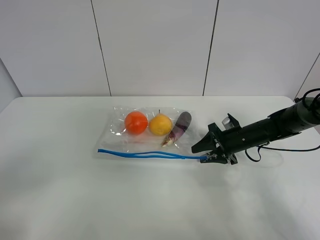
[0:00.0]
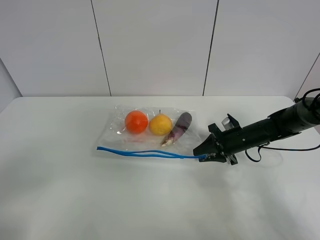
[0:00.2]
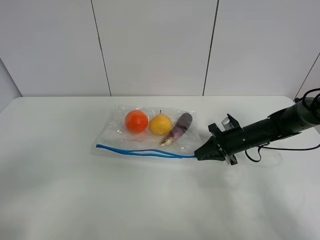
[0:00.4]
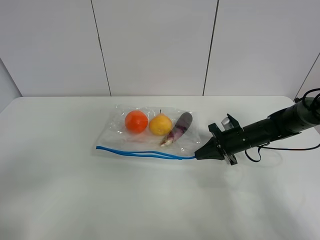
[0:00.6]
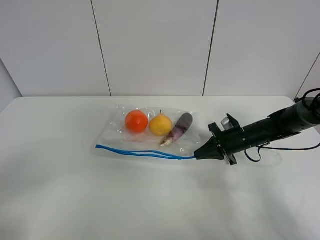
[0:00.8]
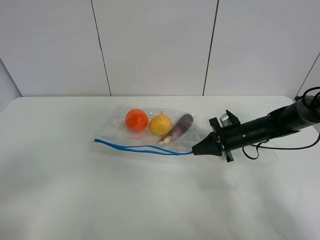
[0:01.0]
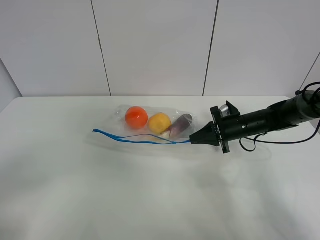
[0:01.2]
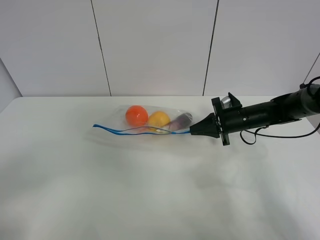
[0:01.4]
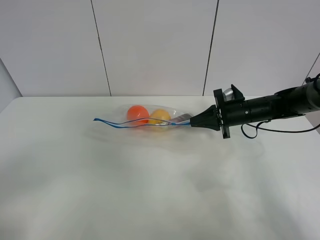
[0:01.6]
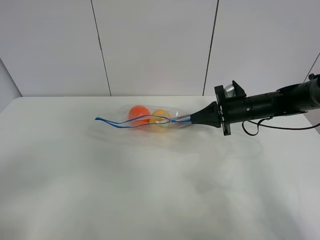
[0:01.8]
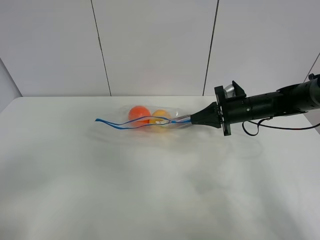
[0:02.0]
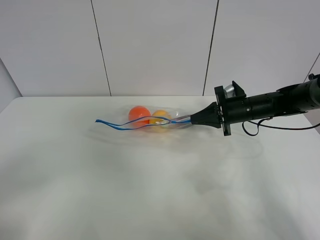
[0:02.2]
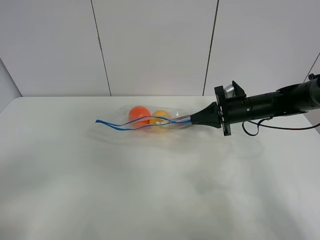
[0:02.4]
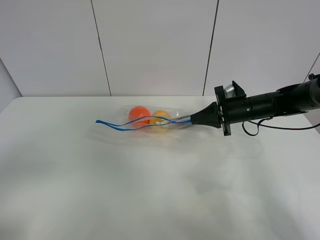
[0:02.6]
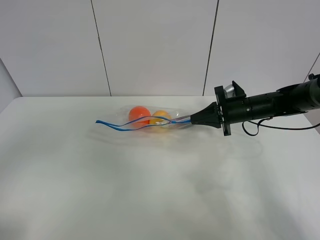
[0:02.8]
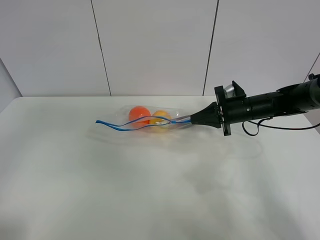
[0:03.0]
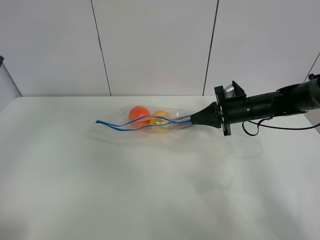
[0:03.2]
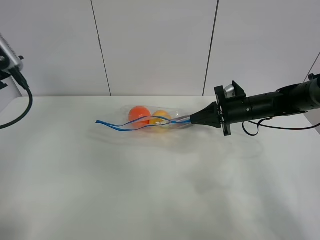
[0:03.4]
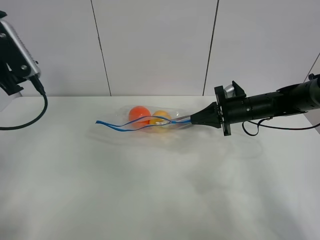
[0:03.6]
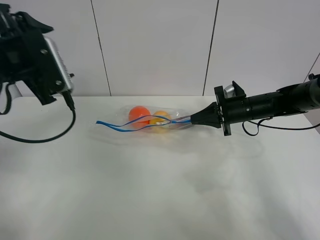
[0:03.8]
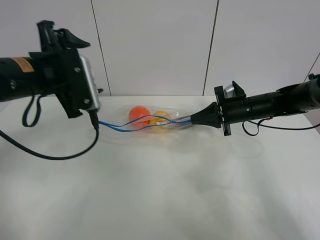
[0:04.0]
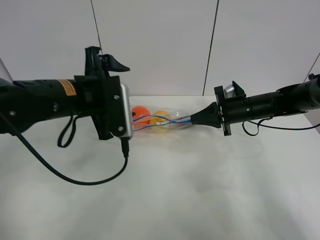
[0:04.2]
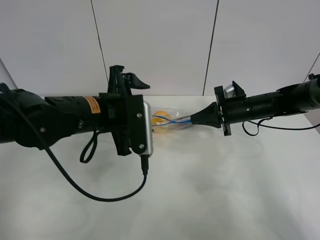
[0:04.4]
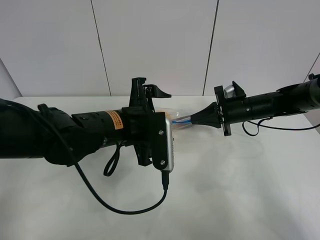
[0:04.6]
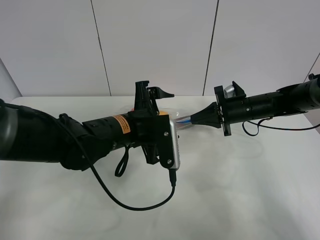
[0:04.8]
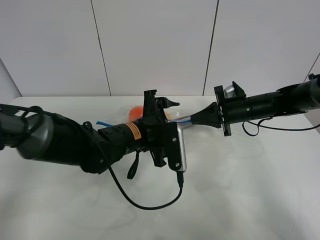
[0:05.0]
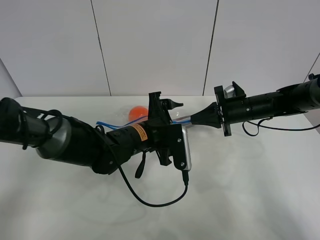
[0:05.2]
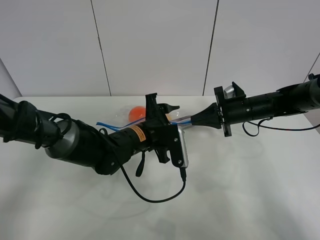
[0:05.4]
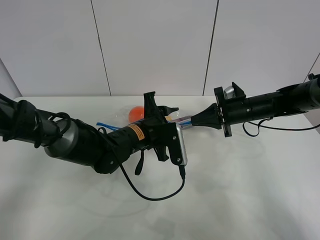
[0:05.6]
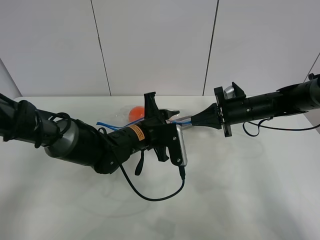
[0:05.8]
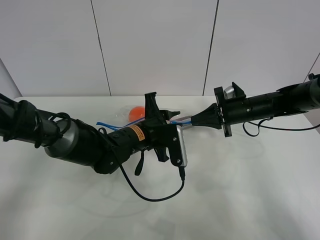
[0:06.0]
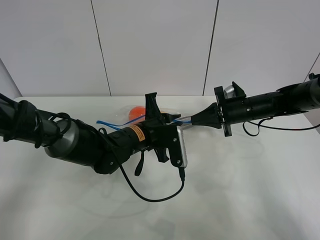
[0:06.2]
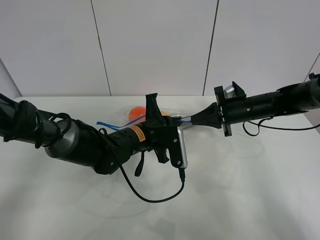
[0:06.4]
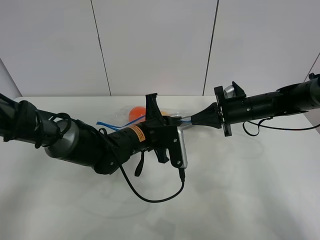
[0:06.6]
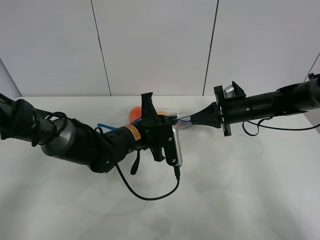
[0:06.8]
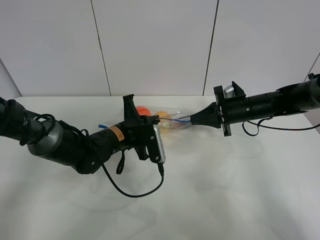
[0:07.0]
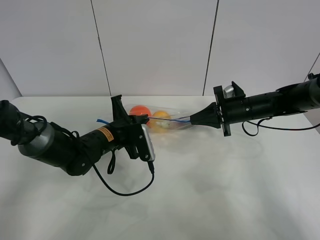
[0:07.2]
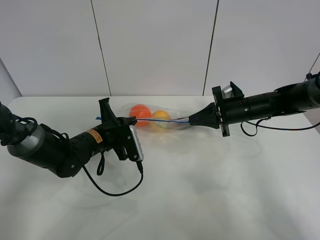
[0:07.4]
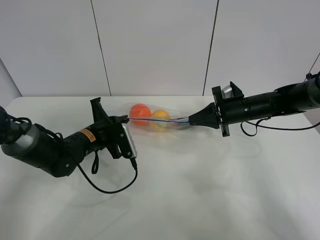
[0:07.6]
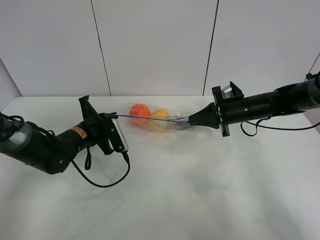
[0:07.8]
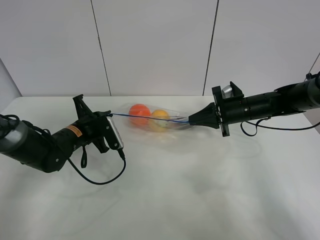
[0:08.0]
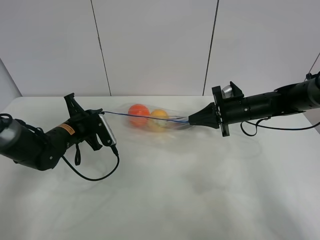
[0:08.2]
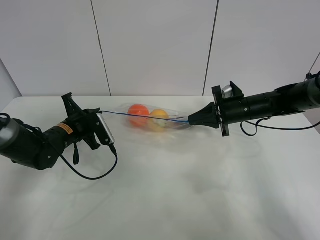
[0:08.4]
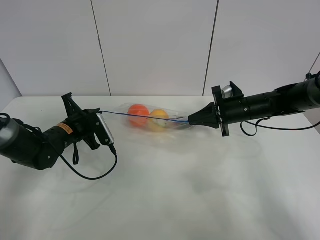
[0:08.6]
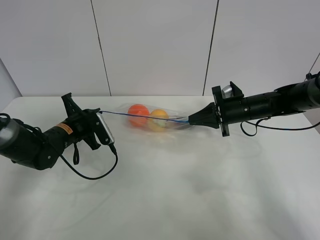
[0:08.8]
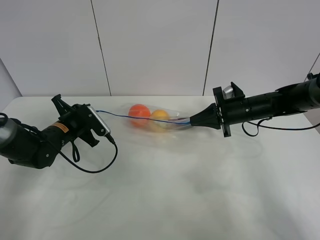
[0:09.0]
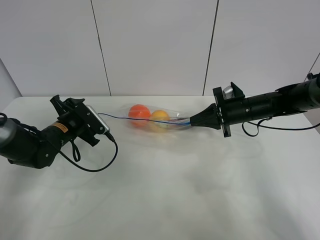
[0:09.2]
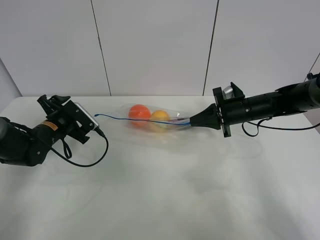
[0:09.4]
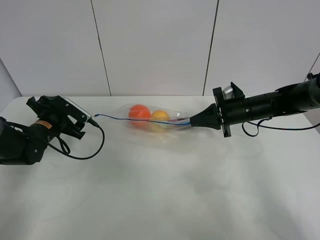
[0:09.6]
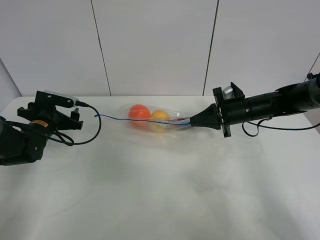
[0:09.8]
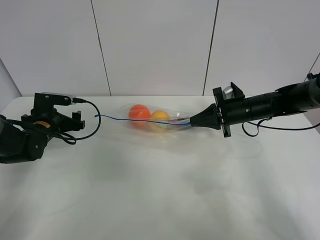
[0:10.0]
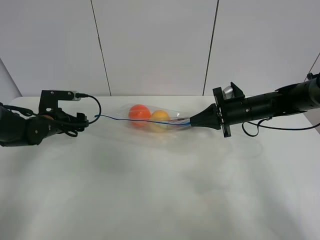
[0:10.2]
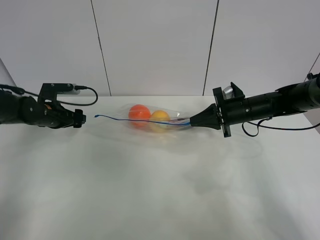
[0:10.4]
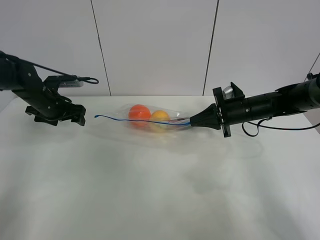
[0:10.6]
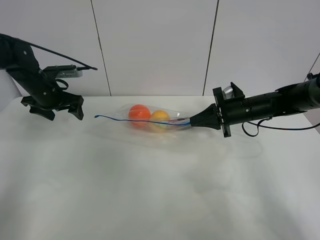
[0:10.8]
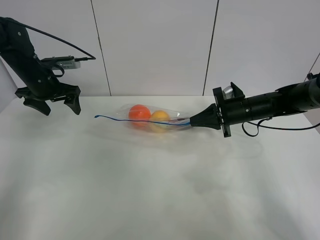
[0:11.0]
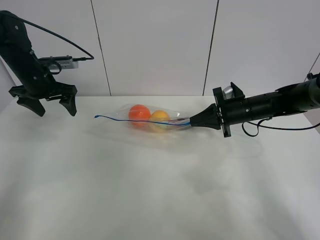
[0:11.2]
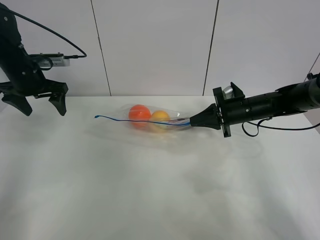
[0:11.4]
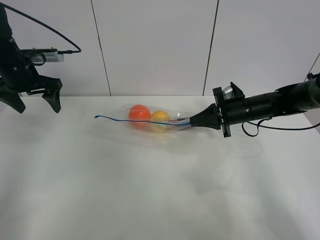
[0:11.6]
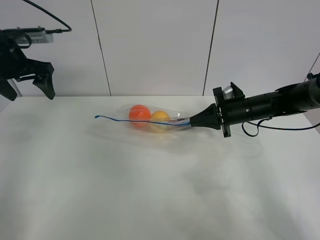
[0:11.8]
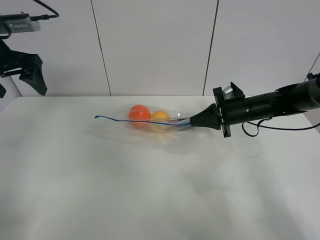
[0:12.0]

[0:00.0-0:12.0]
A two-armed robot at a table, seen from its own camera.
Step, 0.6 to 1.8 s: Lift the fruit bag with your right gripper.
Step, 2.0 to 9.0 s: Pull the fruit bag with left gripper.
0.0 to 1.6 s: The right gripper heads upward, covering approximately 5 cm, and closes.
1.6 to 3.0 s: The left gripper travels forward and upward by roughly 20 cm.
3.0 to 4.4 s: The left gripper heads to the right, downward and forward, covering some 25 cm.
4.4 to 6.0 s: The left gripper travels downward and to the right by roughly 10 cm, and closes.
6.0 to 7.6 s: The left gripper shifts approximately 15 cm to the left.
7.6 to 9.0 s: The left gripper is displaced to the left by about 5 cm, and opens up.
9.0 to 10.4 s: The left gripper heads to the left, covering roughly 5 cm, and opens its fingers.
10.4 to 12.0 s: The left gripper goes roughly 20 cm upward.

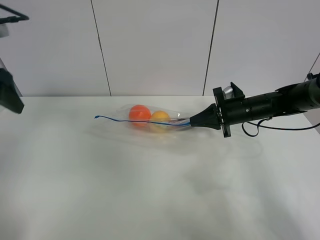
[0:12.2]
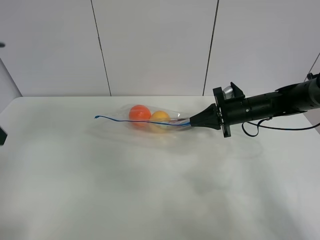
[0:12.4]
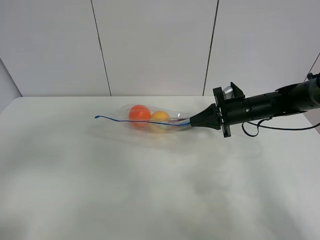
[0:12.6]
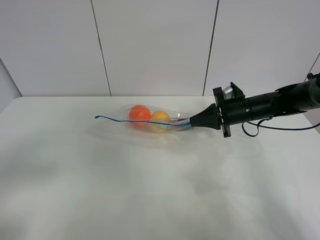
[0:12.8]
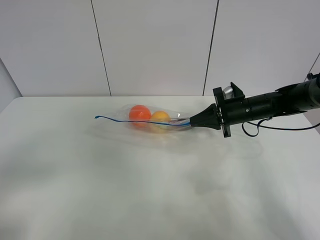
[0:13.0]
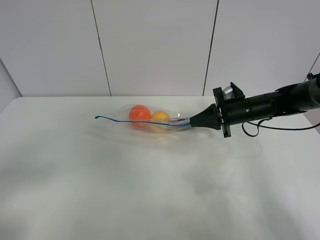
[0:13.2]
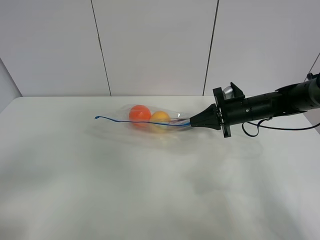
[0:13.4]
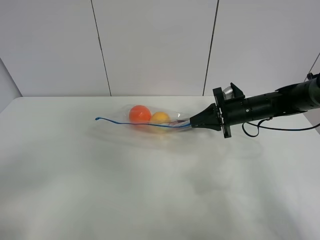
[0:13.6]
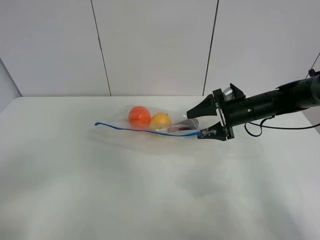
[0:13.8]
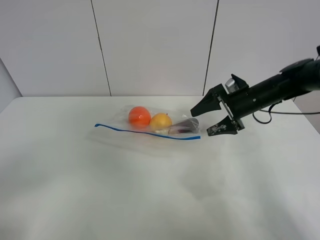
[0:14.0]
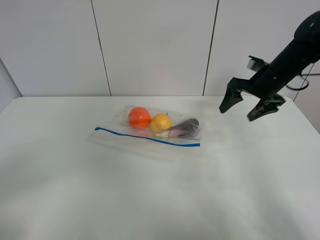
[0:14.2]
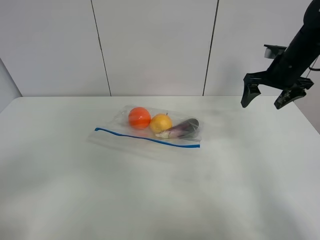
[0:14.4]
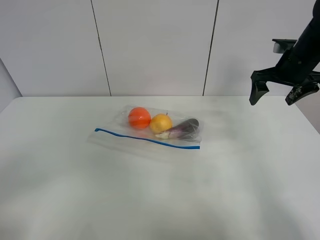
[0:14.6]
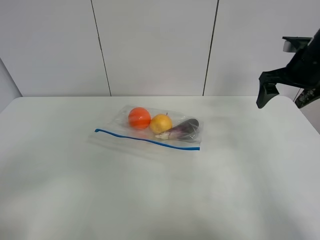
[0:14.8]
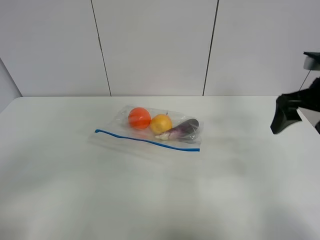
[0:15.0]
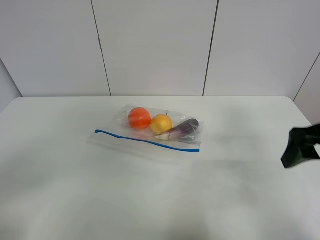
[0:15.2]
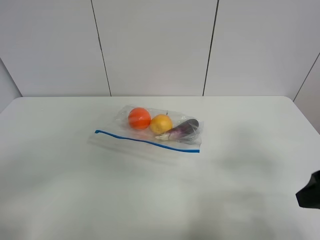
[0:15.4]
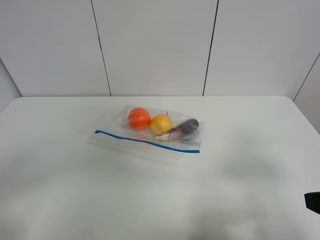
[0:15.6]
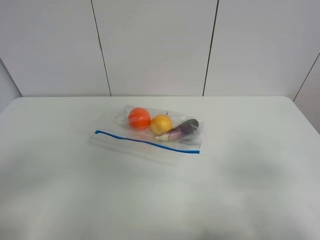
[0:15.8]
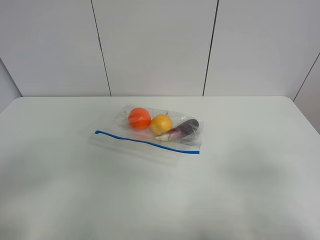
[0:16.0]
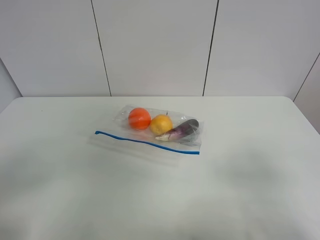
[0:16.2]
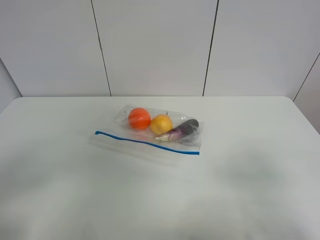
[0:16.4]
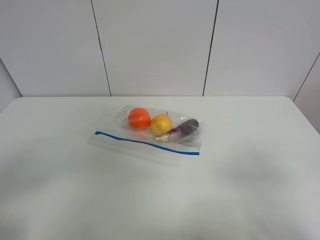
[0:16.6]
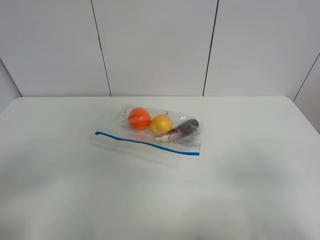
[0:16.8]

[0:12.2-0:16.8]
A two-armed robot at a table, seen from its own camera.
12.2 to 13.8 s: The left gripper goes roughly 25 cm backward; the right gripper opens up.
13.8 to 15.2 s: The right gripper goes some 25 cm backward and upward.
15.2 to 16.8 s: The right gripper is displaced backward by about 20 cm.

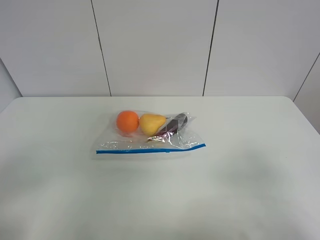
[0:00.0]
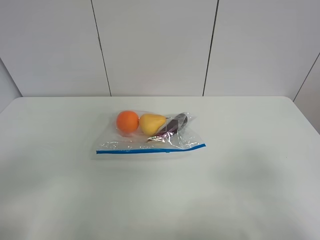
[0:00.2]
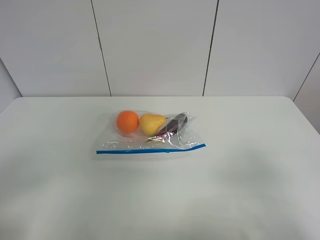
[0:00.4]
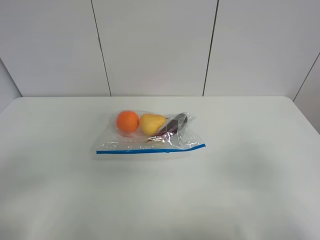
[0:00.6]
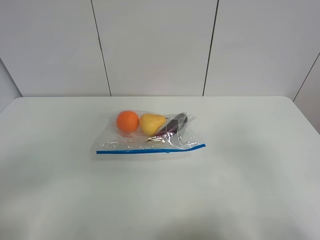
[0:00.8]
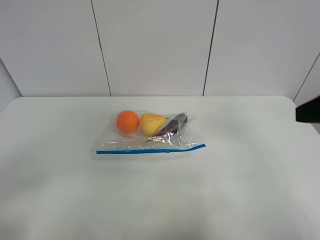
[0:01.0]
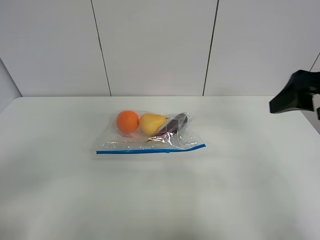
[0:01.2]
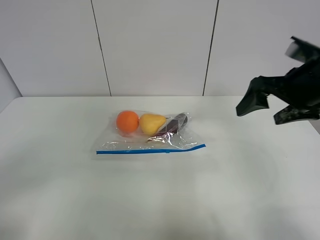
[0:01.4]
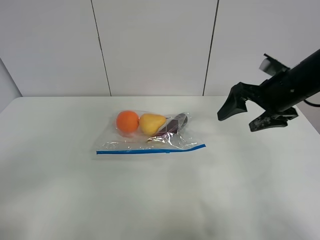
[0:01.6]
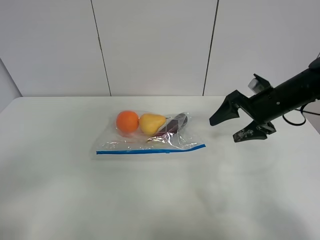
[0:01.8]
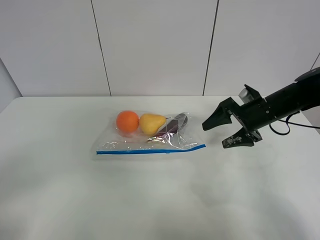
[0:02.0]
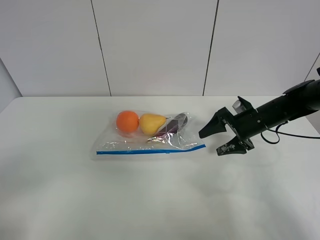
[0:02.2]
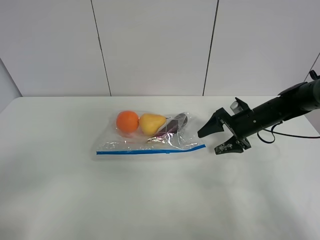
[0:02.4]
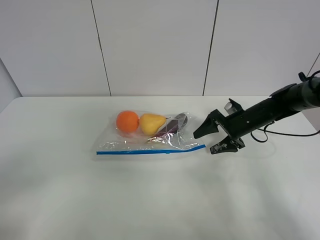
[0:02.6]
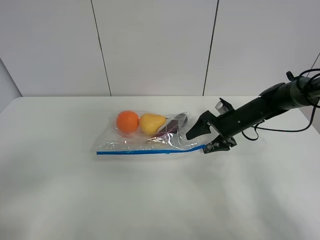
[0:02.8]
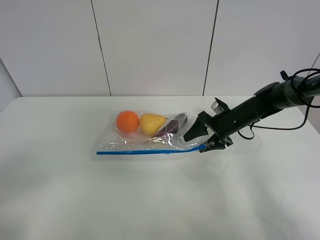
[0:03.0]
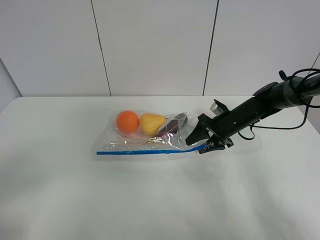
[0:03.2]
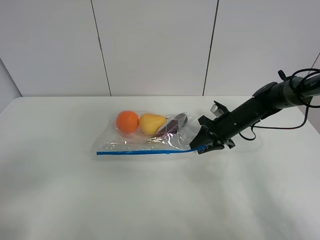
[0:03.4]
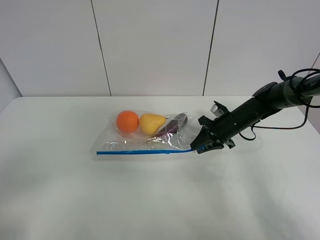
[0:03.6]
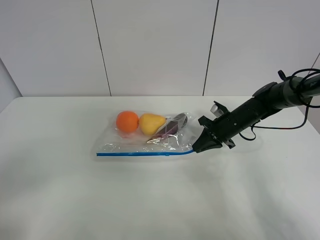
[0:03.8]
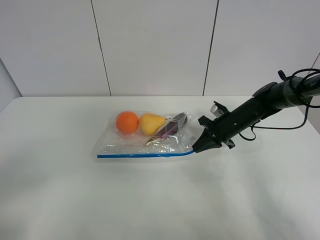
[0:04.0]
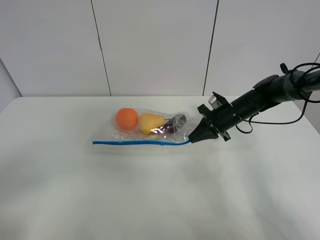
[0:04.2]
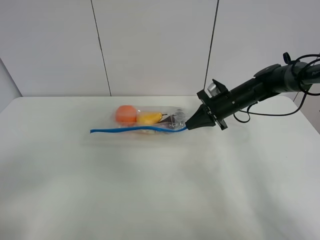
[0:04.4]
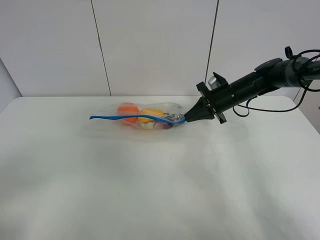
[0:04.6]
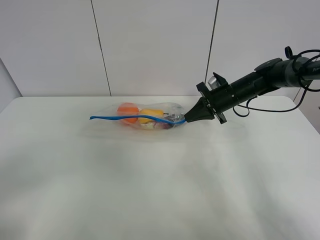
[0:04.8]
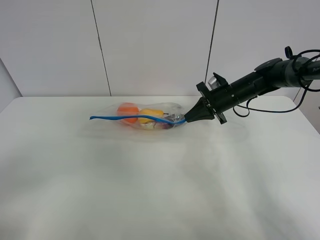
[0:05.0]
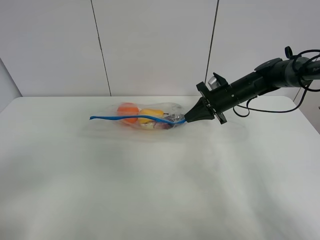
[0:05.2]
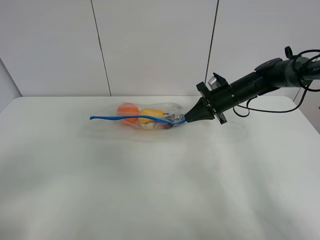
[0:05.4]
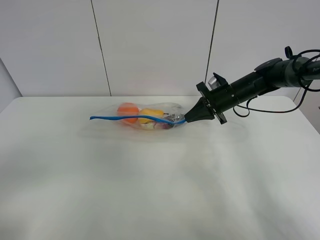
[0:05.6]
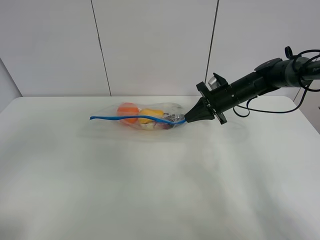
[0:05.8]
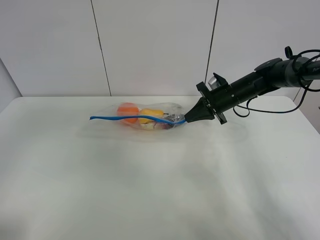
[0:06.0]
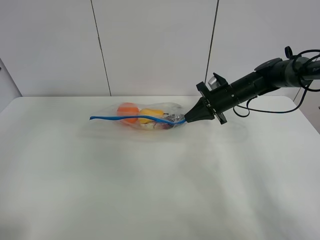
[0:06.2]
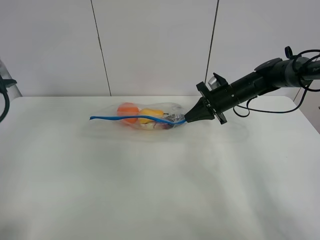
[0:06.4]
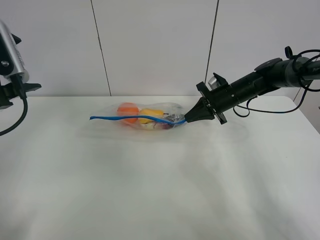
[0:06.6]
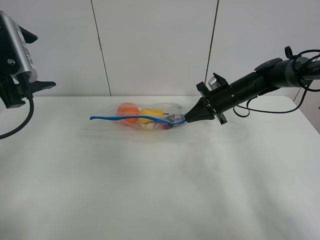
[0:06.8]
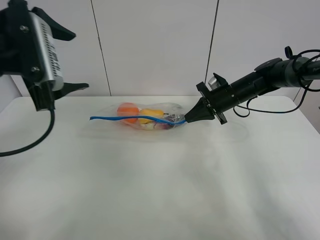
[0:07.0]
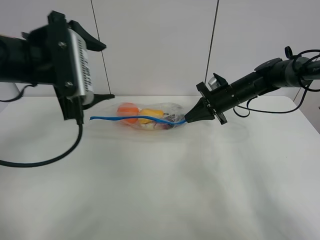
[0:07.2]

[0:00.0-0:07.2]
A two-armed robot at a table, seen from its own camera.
Step, 0.0 to 3.8 s: Grasp the fruit bag with right gripper.
Step, 4.0 to 4.6 s: Lift the fruit bag with your right gripper.
0.0 to 1.4 s: The right gripper goes some 25 cm forward.
1.4 to 2.8 s: The right gripper heads downward and forward, covering some 25 cm.
2.8 to 4.4 s: The right gripper changes place by approximately 5 cm, and closes its fingers.
4.4 to 5.8 s: The left gripper moves upward and forward, about 10 cm.
5.8 to 7.2 s: The left gripper goes about 25 cm forward and to the right.
